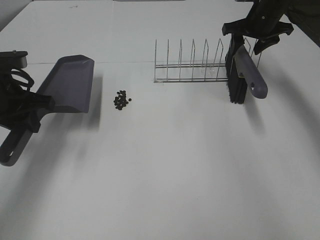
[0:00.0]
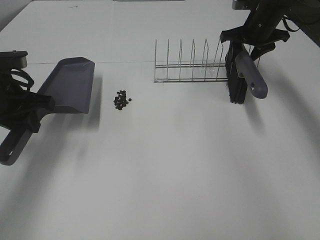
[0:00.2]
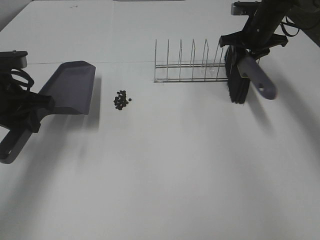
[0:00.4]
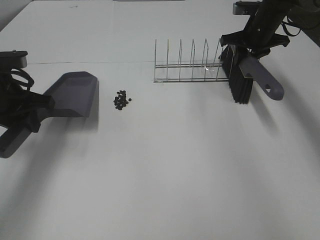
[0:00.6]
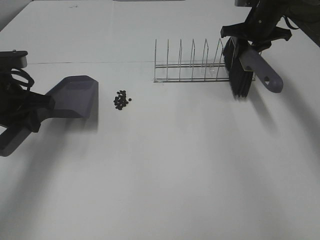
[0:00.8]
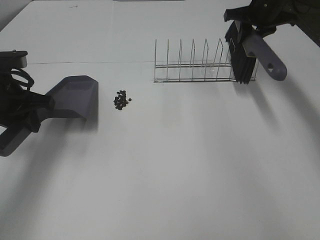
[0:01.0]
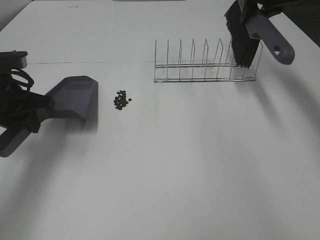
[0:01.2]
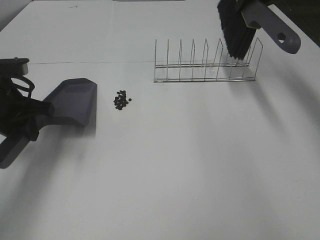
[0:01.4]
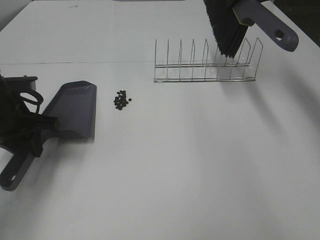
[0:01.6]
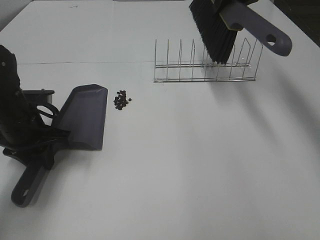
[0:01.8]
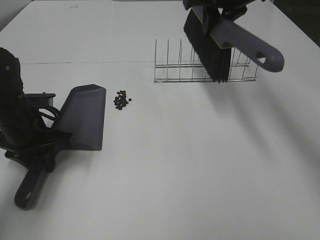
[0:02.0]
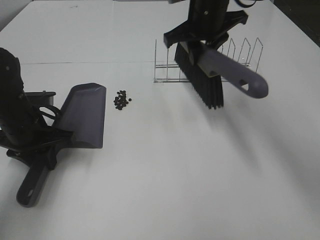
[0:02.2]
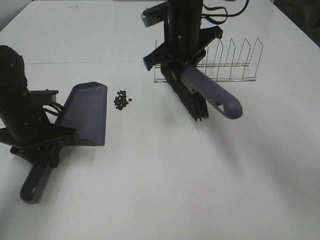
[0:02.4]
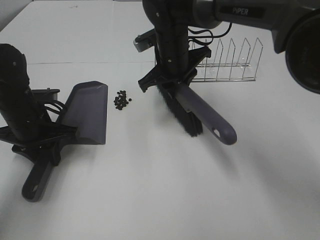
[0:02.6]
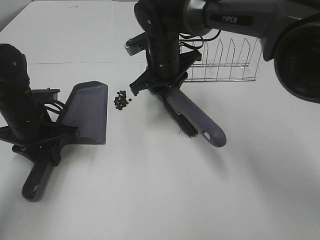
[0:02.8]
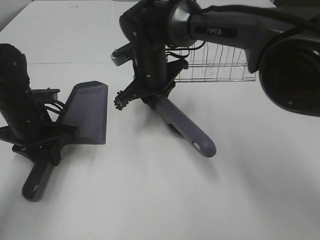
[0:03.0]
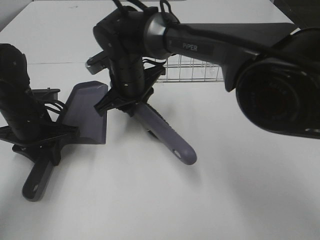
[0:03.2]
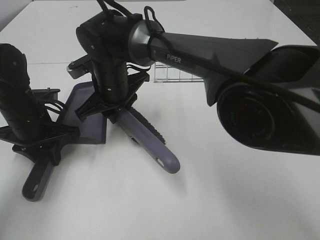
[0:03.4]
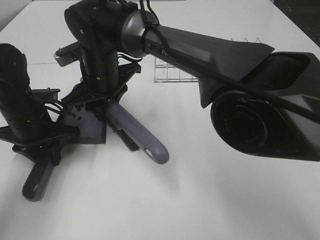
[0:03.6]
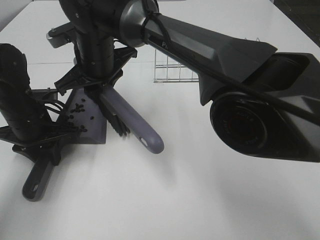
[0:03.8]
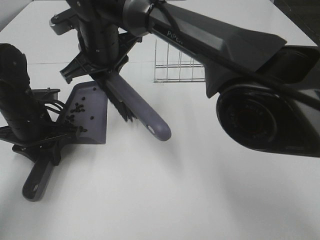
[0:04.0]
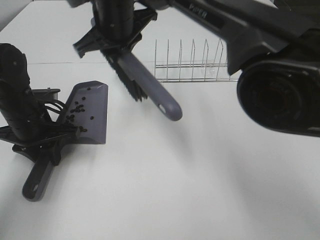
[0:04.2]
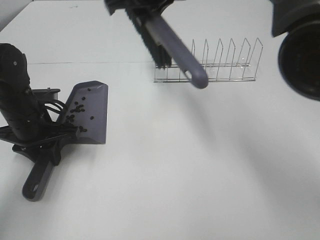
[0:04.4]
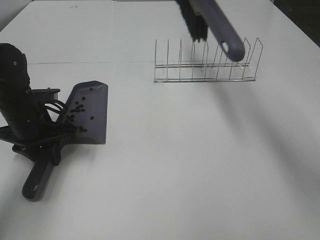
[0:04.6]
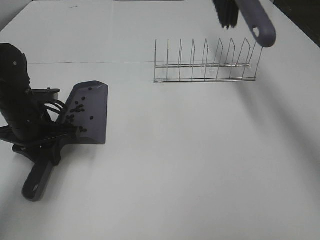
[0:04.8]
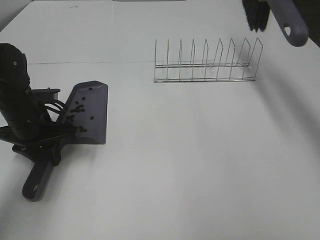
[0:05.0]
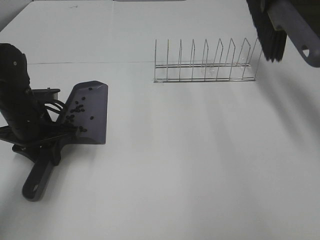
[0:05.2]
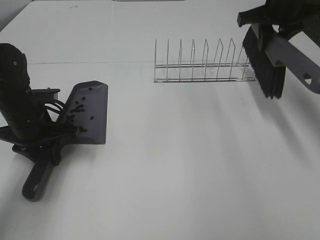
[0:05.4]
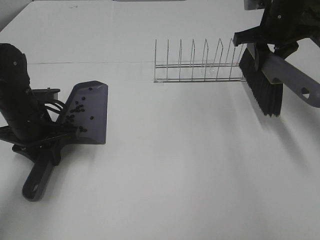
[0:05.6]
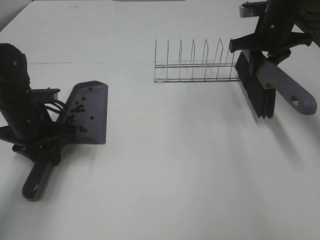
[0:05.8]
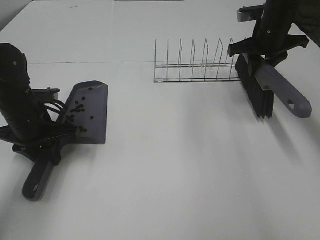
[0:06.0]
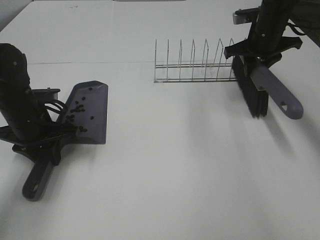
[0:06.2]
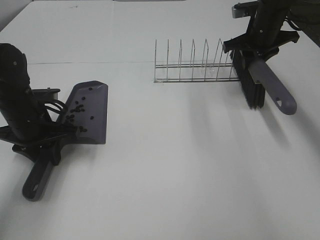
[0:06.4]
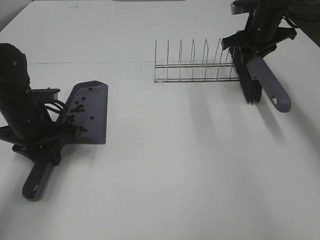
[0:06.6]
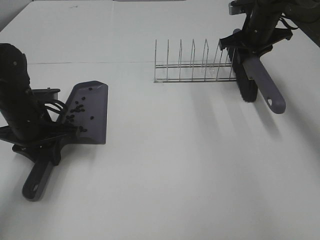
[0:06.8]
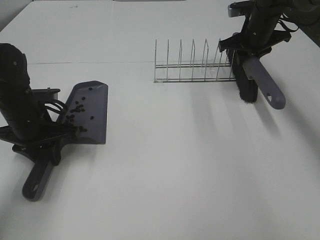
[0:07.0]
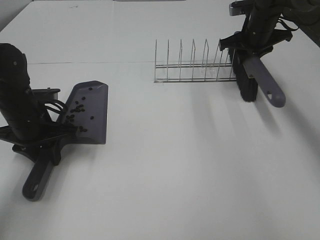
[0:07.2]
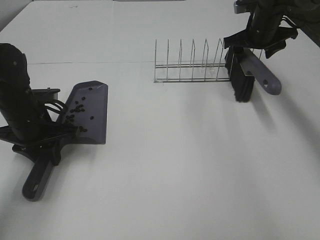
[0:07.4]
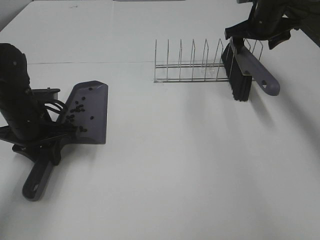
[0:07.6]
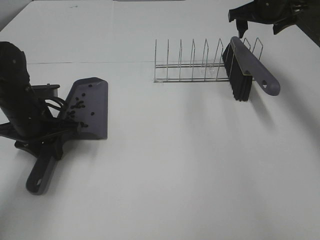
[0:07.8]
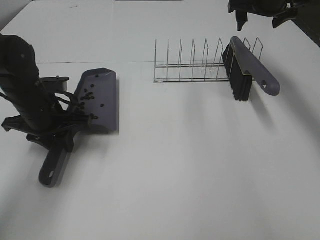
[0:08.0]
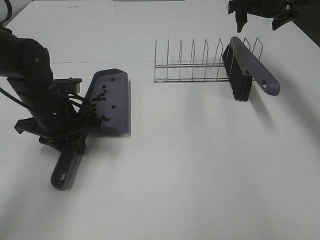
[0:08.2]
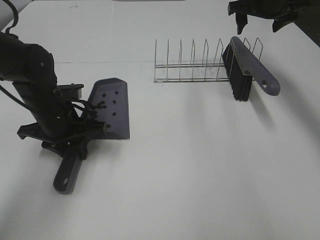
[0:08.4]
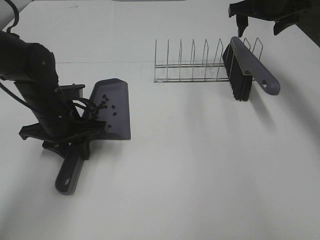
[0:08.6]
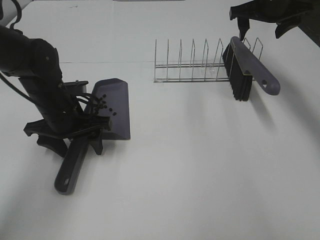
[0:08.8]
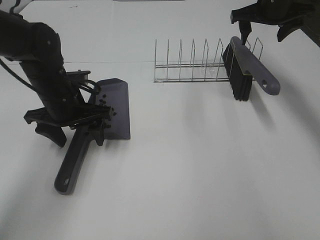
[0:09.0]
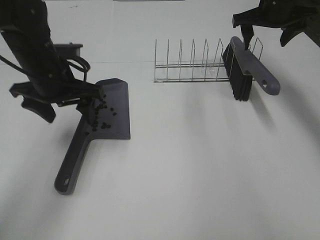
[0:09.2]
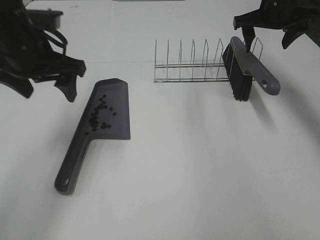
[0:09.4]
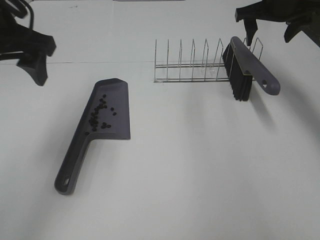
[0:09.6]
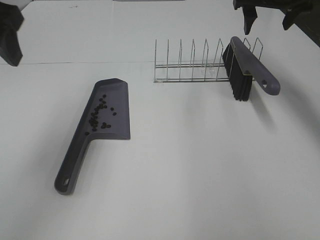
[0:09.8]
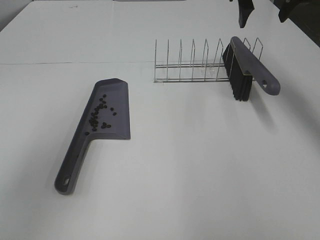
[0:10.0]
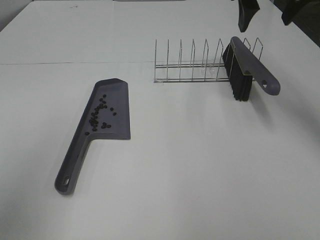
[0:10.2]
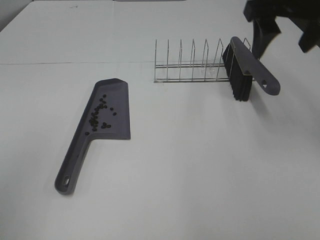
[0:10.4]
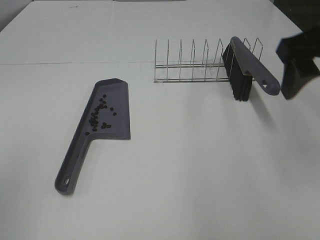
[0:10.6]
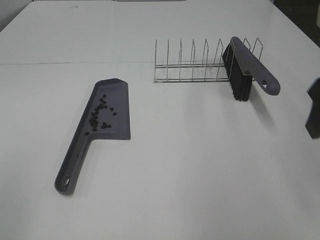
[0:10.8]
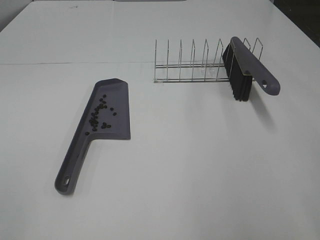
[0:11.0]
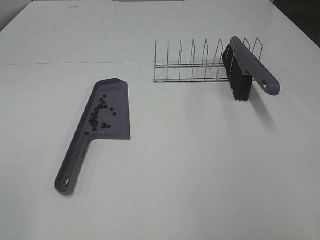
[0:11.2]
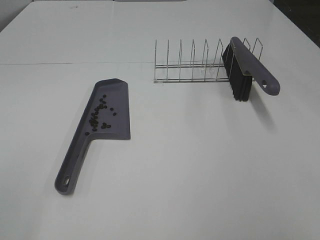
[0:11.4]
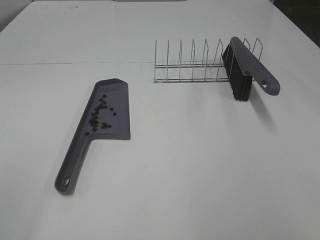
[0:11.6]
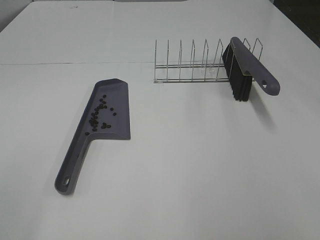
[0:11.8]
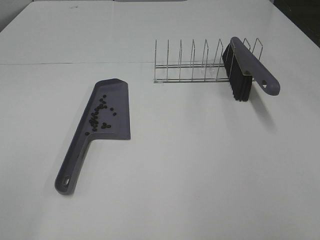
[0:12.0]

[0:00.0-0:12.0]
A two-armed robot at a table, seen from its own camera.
Task of the whole recording: Sweep Coffee Bean.
Step, 0:00.0 to 0:02.4: Left hand: move the dustpan to the left side of the coffee beans.
Step, 0:00.6 to 0:03.8: Right hand:sweep the coffee beans into the dustpan.
Step, 0:04.0 to 0:07.4: Right hand:place the broom on the rack.
Step, 0:07.6 to 0:08.8: Left hand:place the dustpan on the table.
0:00.0 to 0:01.6: The right gripper is displaced upward by approximately 10 cm, and closes its fingers.
0:01.6 to 0:03.0: The right gripper moves to the left and downward, approximately 30 cm.
0:03.0 to 0:04.4: The right gripper travels upward by some 15 cm.
0:04.4 to 0:06.0: The right gripper goes approximately 25 cm to the right and downward.
0:06.0 to 0:07.6: The right gripper opens its fingers.
0:07.6 to 0:09.0: The left gripper shifts about 5 cm to the right, and opens up.
0:09.0 to 0:10.4: The left gripper shifts about 35 cm backward, upward and to the left. The right gripper moves backward and upward, some 20 cm.
0:10.4 to 0:12.0: The right gripper shifts some 35 cm backward.

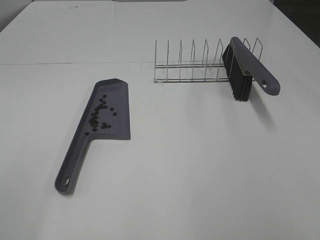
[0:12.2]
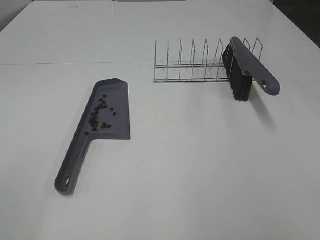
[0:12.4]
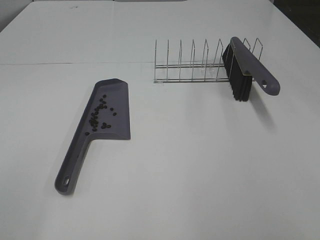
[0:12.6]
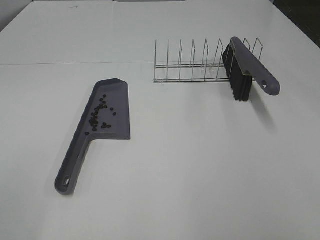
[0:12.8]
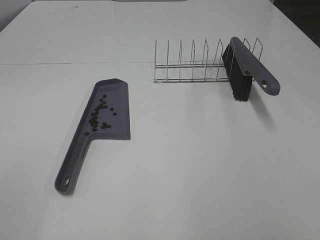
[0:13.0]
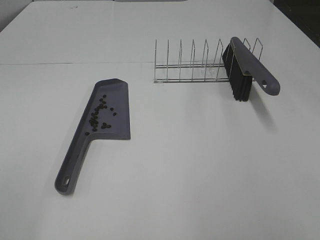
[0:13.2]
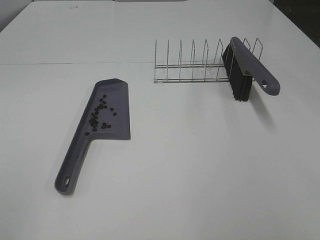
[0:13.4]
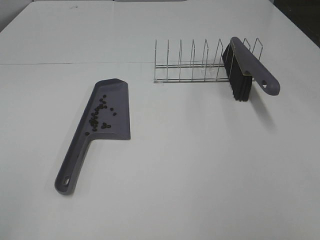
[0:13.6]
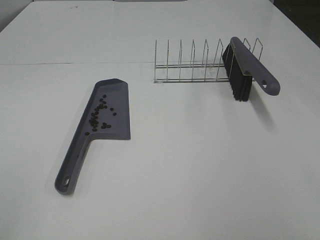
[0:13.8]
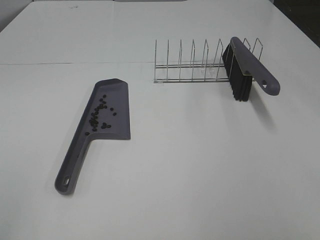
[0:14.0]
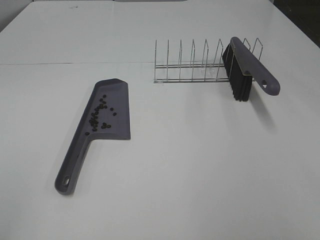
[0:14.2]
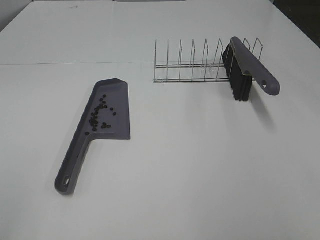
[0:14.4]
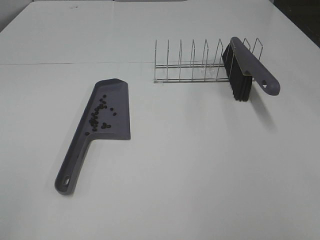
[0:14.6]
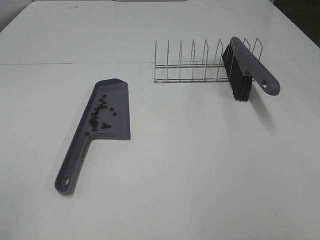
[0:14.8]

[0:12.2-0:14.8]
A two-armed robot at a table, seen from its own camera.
Task of the whole recording: Sweep Coffee Bean.
0:13.4 to 0:14.8: Both grippers stay about where they are.

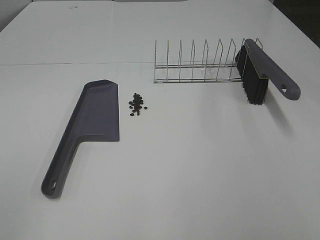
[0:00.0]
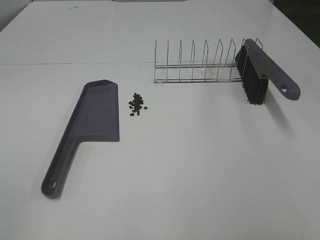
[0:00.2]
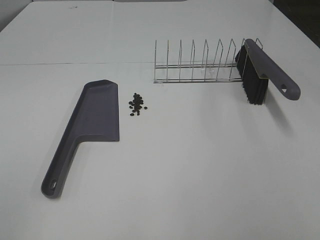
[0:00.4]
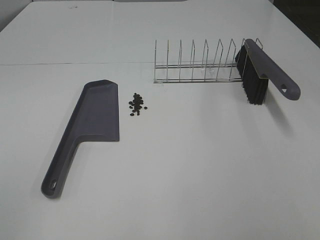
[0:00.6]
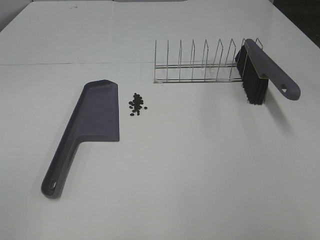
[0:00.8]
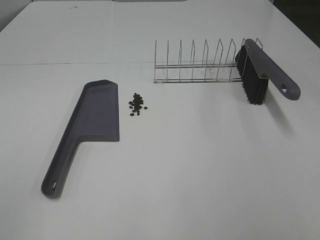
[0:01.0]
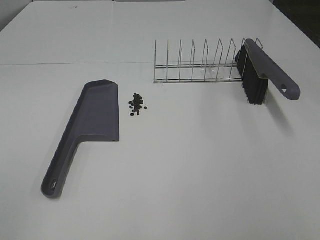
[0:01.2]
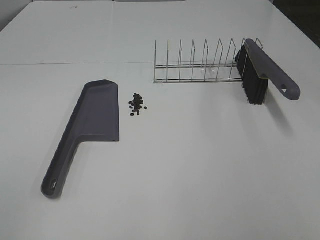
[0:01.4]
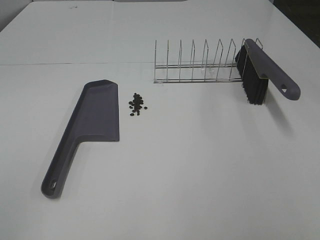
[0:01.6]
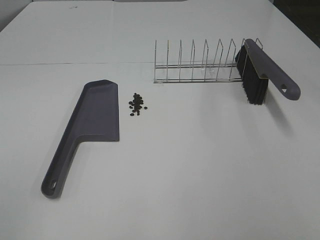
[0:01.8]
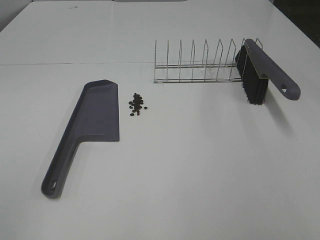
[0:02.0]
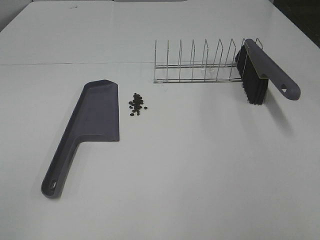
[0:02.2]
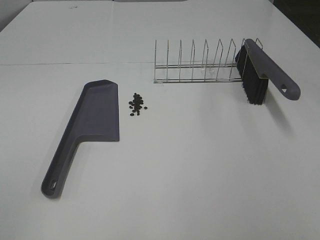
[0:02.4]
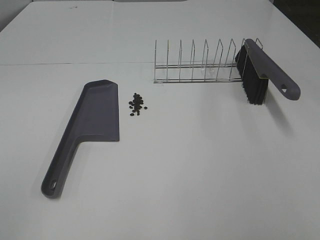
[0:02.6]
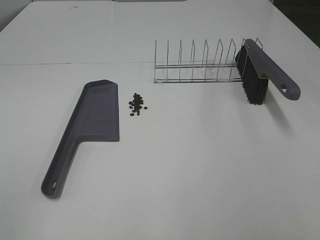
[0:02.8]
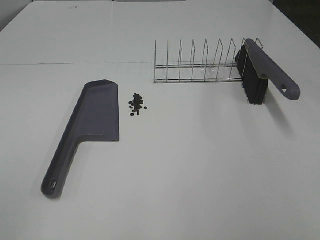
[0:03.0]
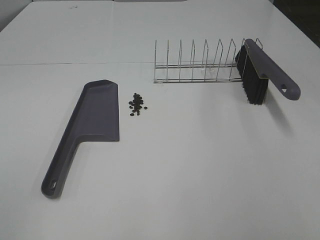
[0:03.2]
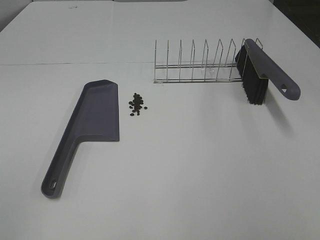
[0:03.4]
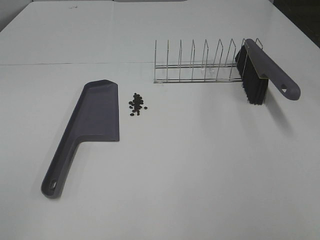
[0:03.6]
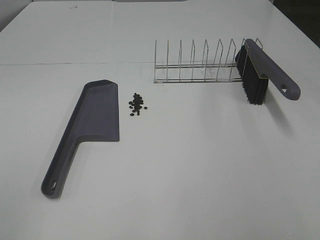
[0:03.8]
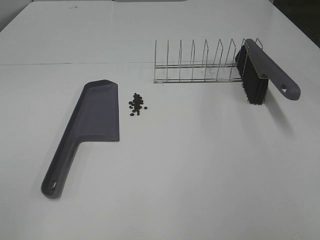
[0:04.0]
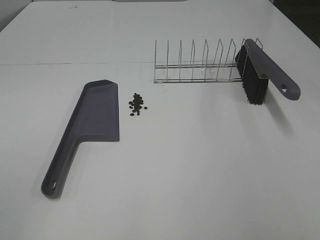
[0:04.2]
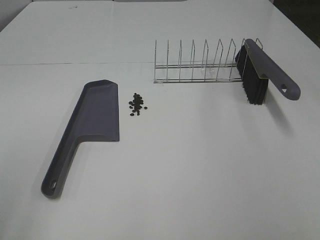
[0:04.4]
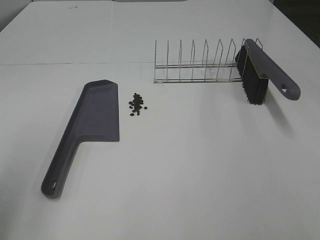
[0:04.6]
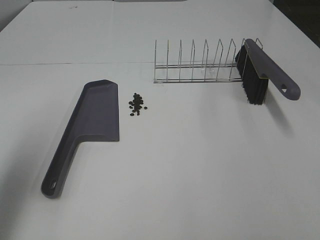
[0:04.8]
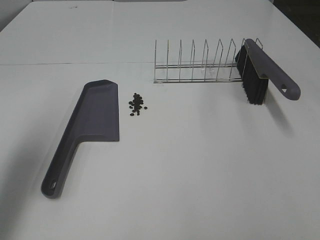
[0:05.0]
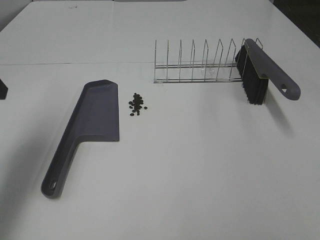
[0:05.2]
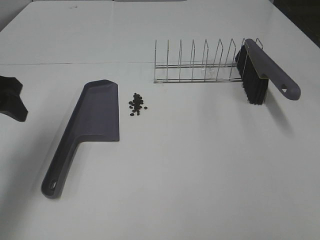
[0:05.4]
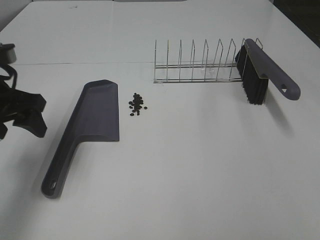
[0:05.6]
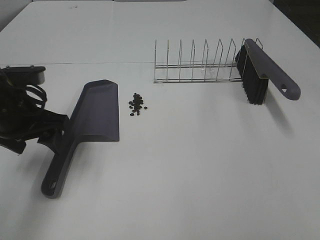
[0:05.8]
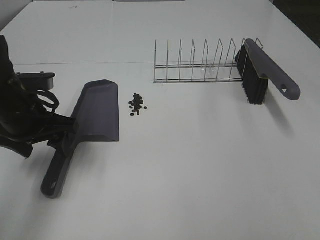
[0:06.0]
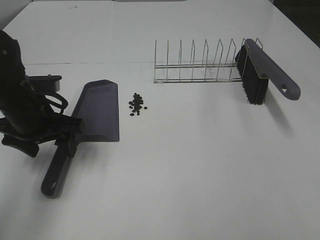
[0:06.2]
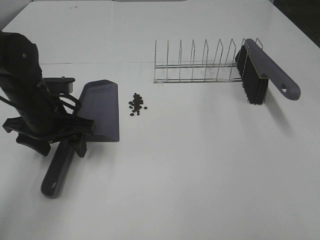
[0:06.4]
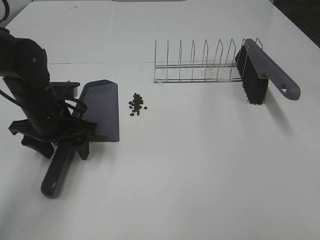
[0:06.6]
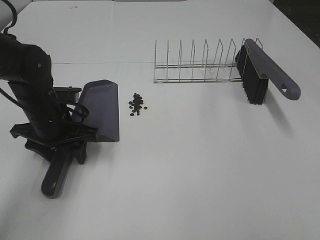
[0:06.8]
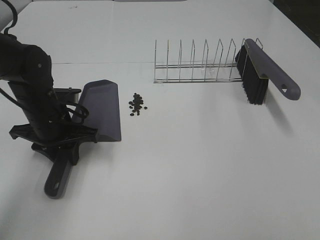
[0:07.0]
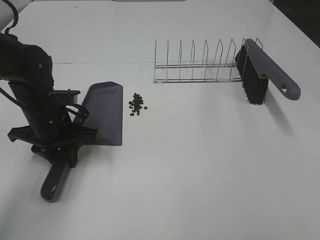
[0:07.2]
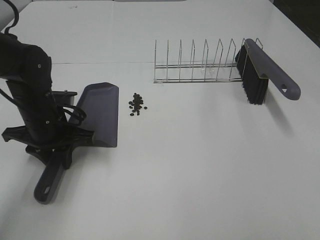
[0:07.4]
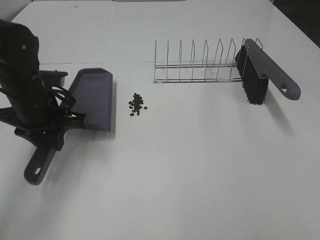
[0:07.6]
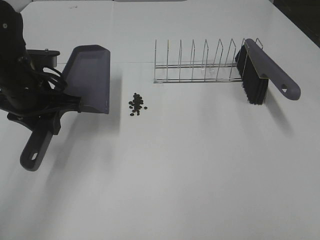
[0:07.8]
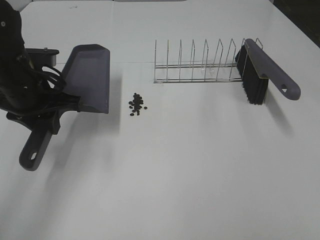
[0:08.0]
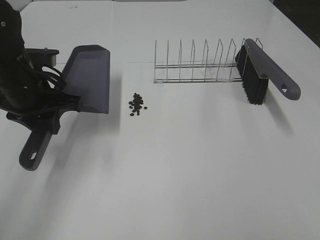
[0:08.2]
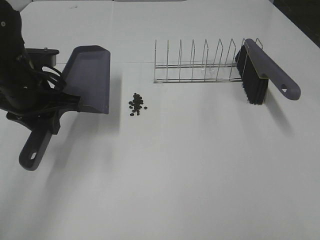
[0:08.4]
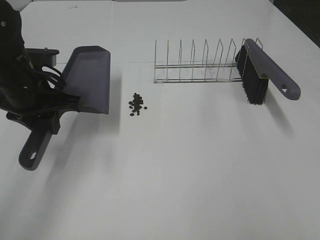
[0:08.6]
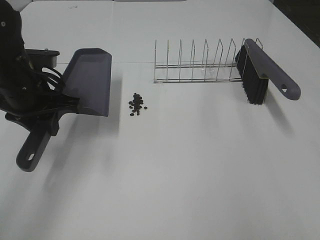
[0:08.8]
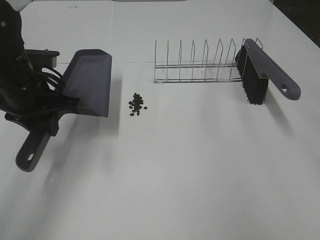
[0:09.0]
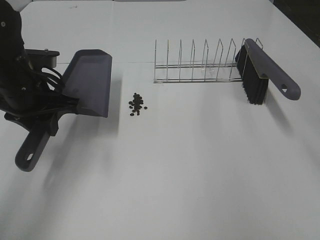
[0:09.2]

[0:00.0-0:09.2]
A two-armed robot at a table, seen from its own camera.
Task of the whole recording: Sweep Coffee Bean.
Step, 0:00.0 to 0:07.0: Left hand: grab the dustpan.
0:00.0 to 0:03.0: Both grippers stay put.
0:03.0 to 0:04.6: The left gripper goes some 10 cm forward.
0:04.6 to 0:06.2: The left gripper goes approximately 30 cm forward, downward and to the right.
0:06.2 to 0:07.6: The left gripper closes its fingers.
0:07.6 to 0:09.2: The right gripper goes some 25 cm forward.
